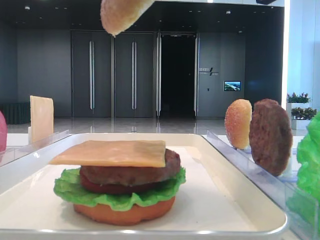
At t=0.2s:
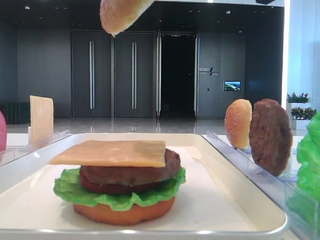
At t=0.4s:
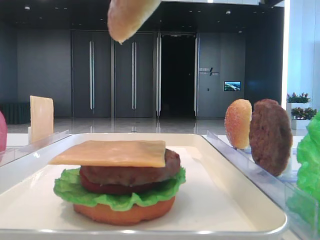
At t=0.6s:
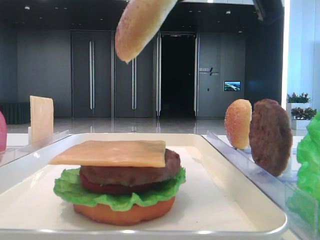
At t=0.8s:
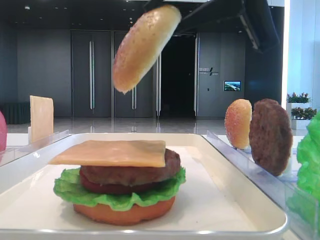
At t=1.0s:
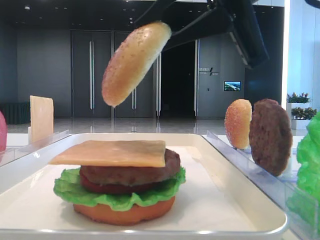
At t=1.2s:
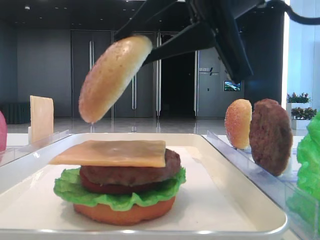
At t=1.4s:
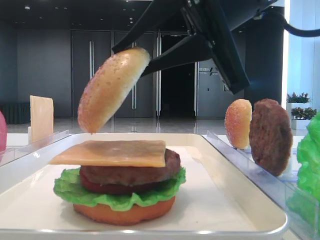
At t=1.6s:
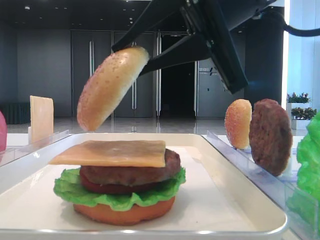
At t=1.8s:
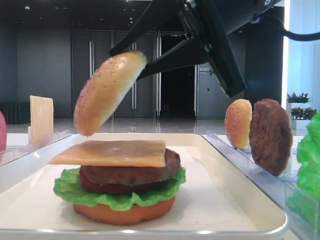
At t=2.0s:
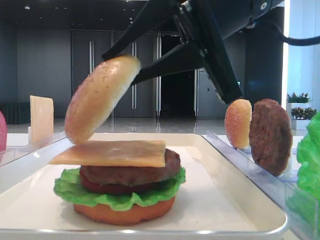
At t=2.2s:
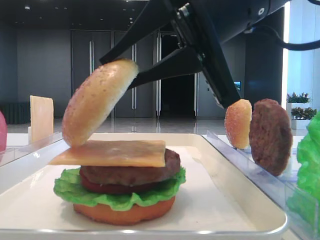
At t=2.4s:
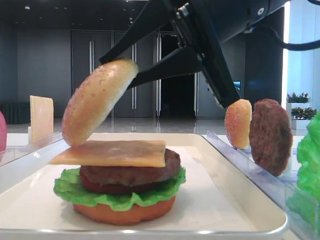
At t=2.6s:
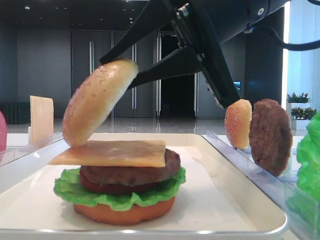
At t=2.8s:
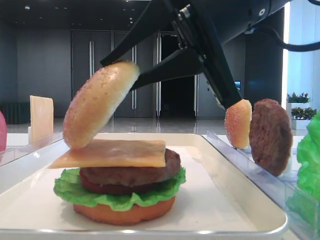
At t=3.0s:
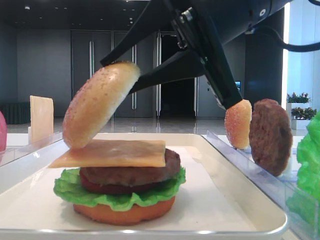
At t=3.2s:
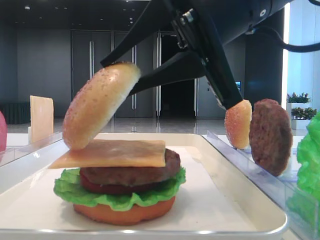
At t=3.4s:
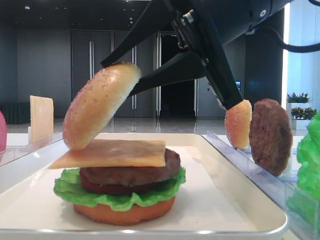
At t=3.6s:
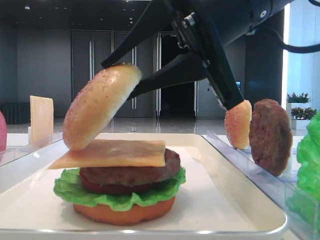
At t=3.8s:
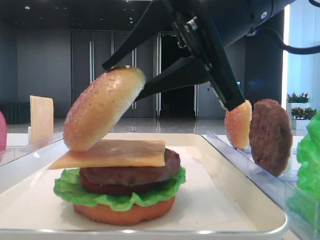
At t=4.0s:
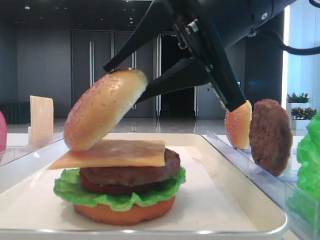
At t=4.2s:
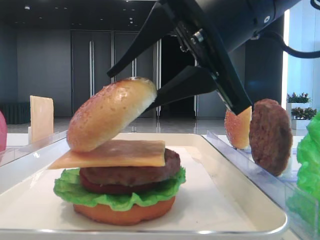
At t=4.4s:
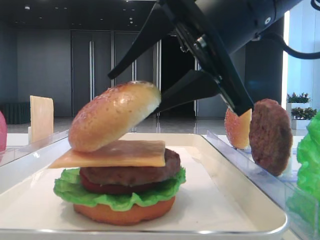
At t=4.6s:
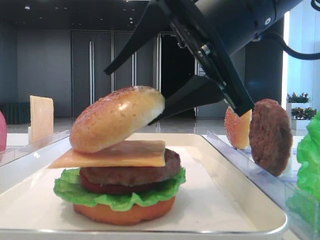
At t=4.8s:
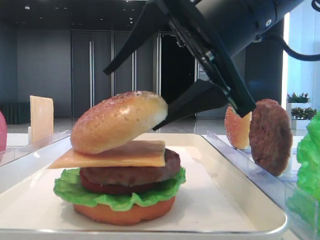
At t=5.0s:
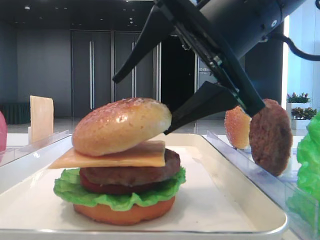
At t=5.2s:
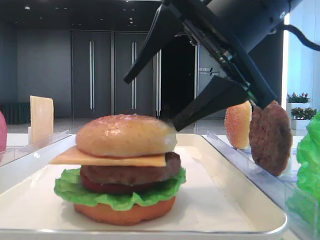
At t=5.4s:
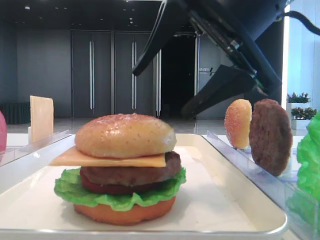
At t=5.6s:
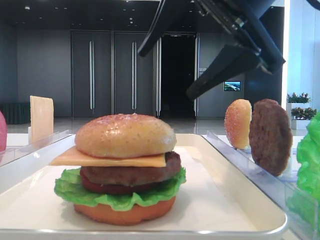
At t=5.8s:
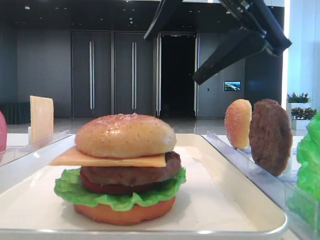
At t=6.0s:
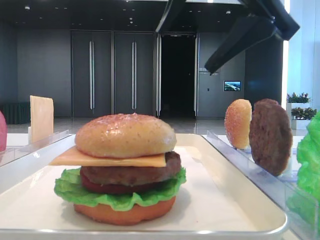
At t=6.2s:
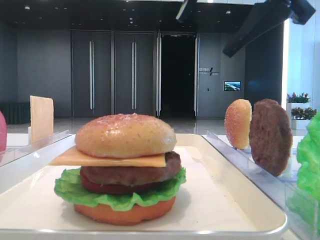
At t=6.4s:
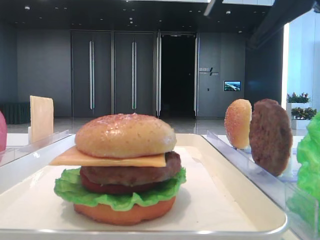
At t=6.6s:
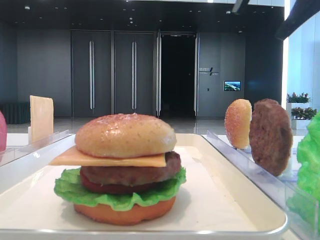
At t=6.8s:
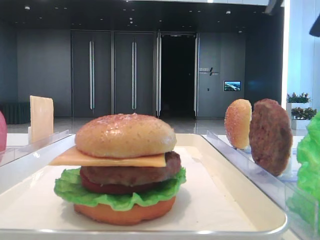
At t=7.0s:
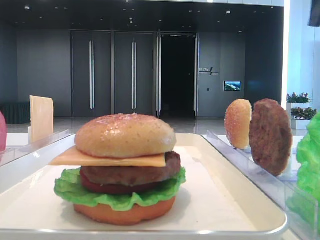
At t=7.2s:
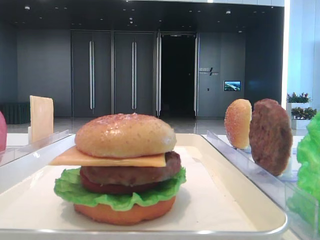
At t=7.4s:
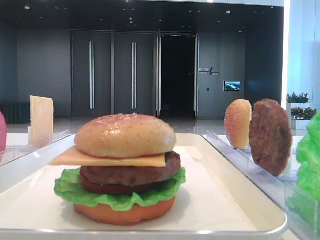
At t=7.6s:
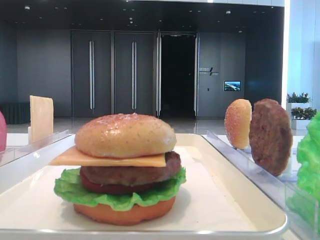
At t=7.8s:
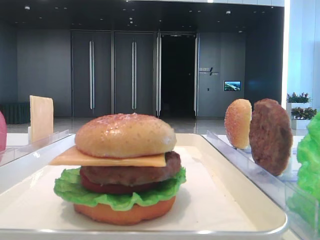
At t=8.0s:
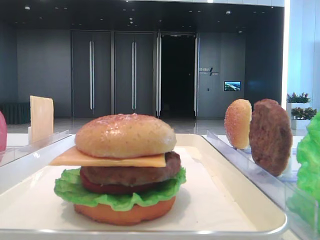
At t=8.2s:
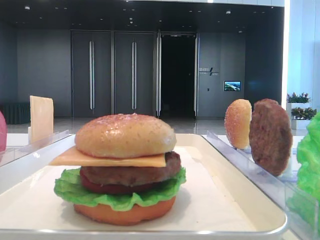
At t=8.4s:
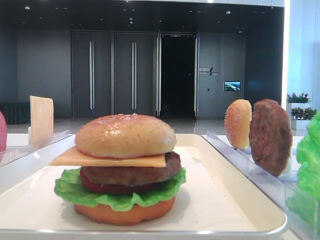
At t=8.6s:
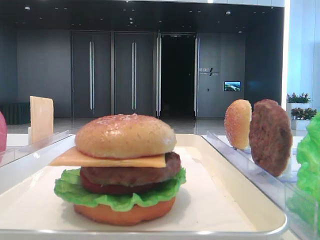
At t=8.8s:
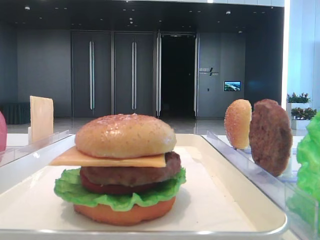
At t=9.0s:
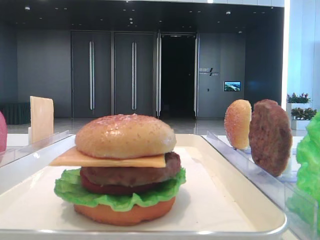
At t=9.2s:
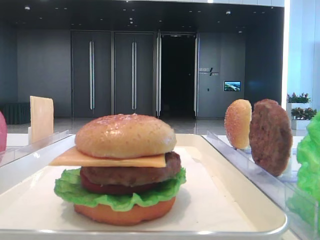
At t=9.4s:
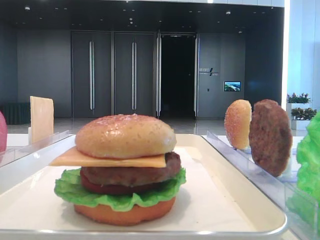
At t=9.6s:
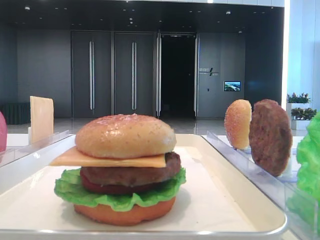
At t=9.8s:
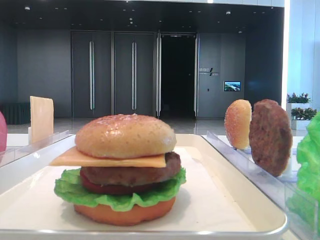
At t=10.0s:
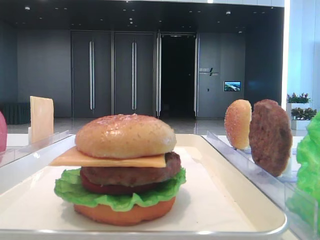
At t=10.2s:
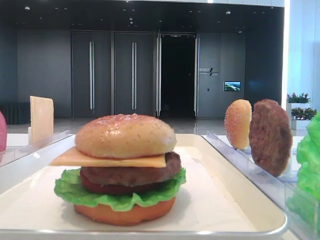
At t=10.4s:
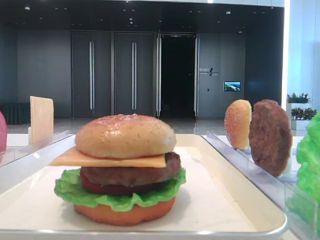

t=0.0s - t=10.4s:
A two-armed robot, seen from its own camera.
Step, t=0.0s - t=5.0s: Place the top bread slice on the cheese with the right hand.
t=0.0s - t=1.4s: The right gripper travels downward by roughly 10 cm.
t=1.4s - t=3.0s: There are only small adjustments of the grippers.
t=3.0s - t=4.4s: The right gripper opens its fingers.
t=4.4s - t=6.0s: The right gripper moves upward, about 5 cm, and opens up.
t=6.0s - t=7.4s: The right gripper goes about 20 cm to the right.

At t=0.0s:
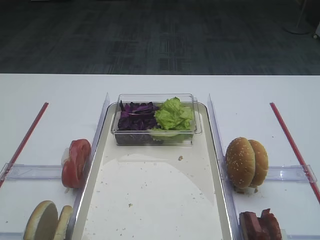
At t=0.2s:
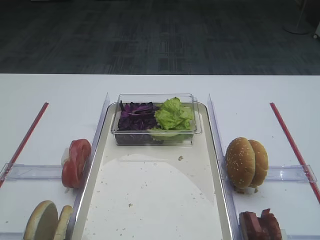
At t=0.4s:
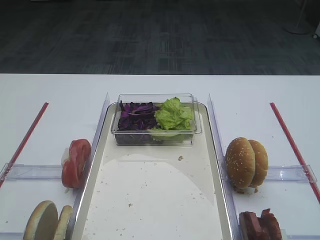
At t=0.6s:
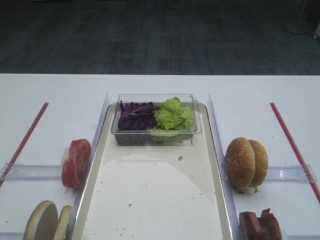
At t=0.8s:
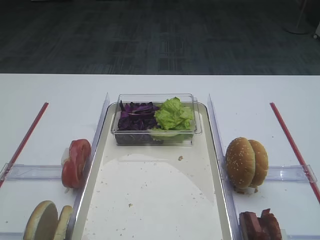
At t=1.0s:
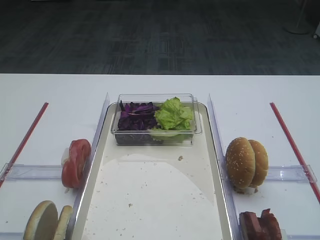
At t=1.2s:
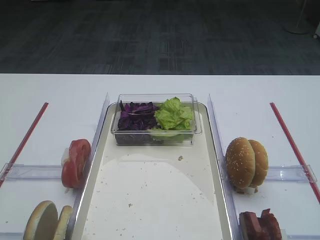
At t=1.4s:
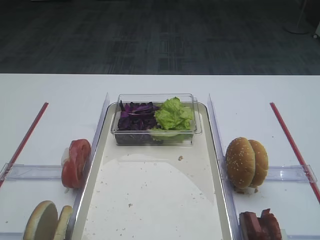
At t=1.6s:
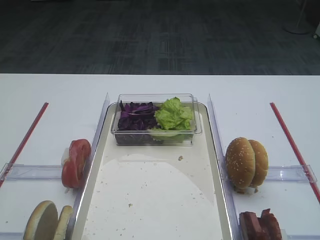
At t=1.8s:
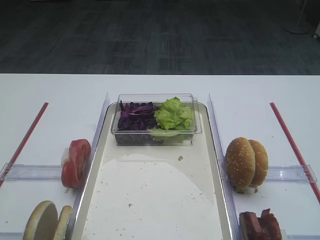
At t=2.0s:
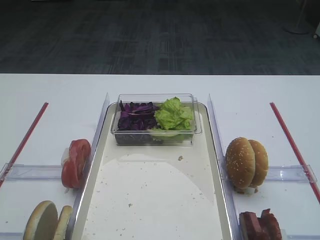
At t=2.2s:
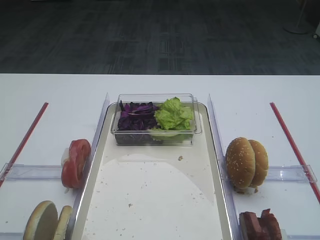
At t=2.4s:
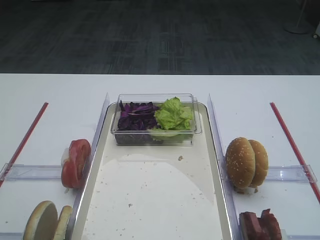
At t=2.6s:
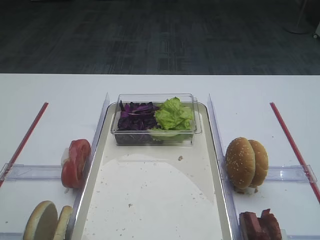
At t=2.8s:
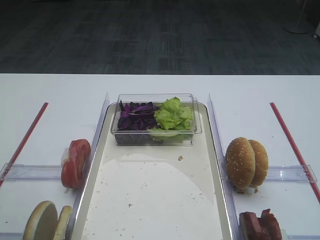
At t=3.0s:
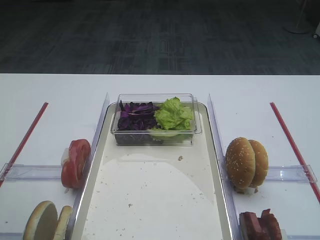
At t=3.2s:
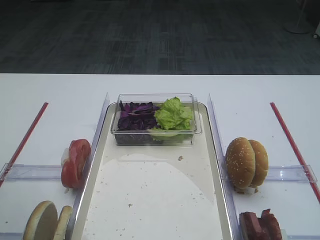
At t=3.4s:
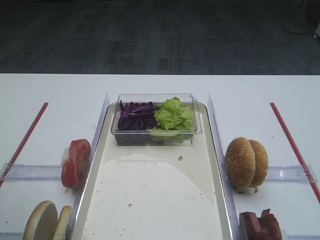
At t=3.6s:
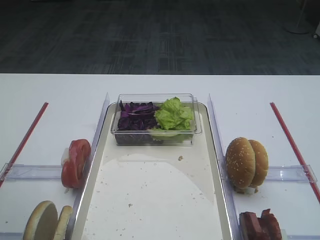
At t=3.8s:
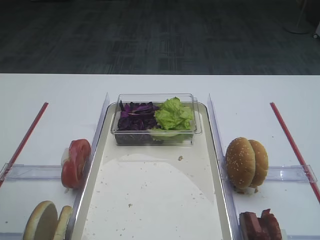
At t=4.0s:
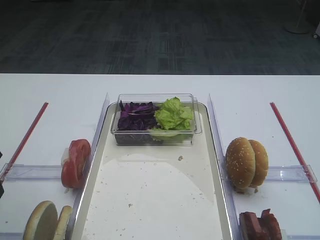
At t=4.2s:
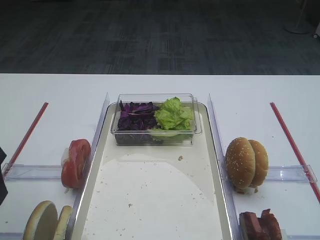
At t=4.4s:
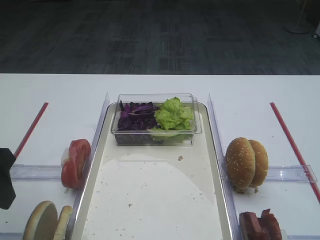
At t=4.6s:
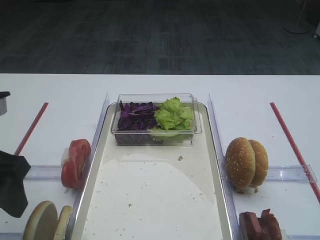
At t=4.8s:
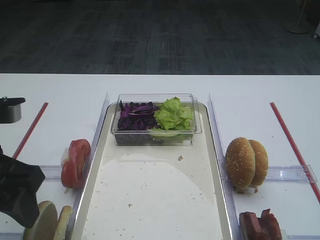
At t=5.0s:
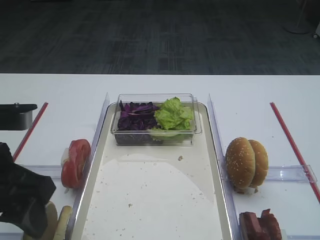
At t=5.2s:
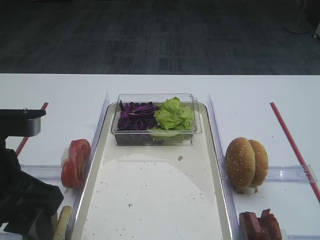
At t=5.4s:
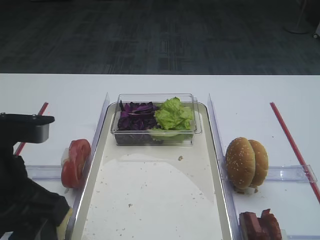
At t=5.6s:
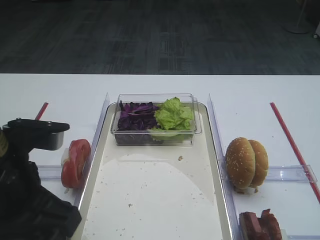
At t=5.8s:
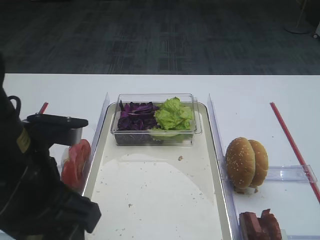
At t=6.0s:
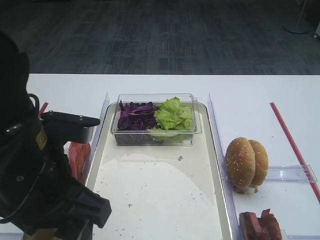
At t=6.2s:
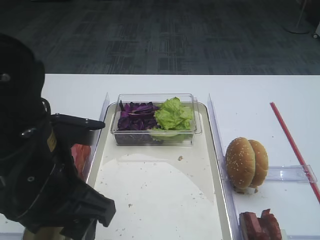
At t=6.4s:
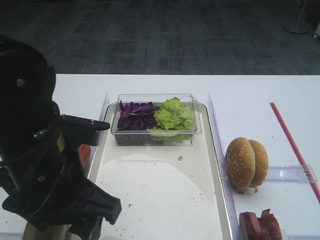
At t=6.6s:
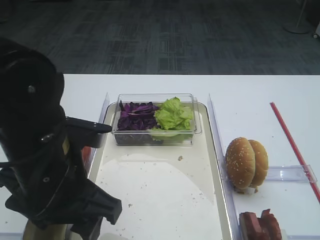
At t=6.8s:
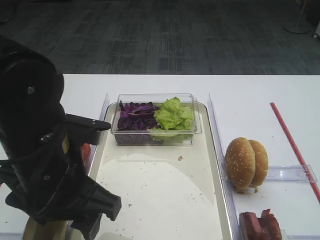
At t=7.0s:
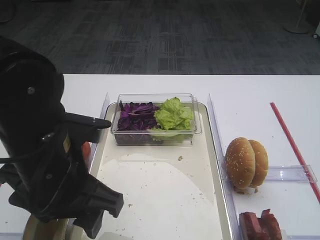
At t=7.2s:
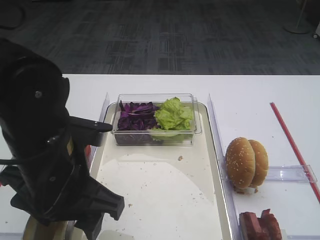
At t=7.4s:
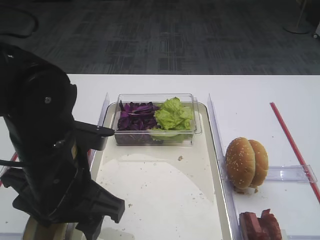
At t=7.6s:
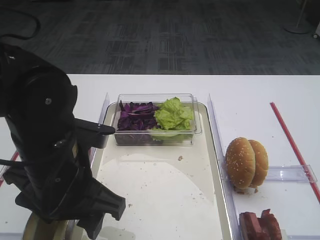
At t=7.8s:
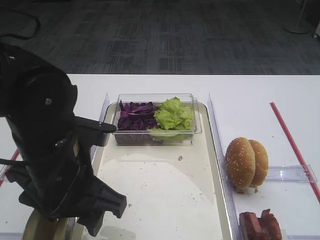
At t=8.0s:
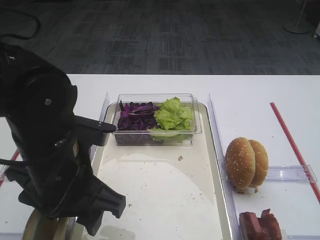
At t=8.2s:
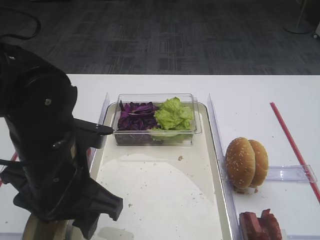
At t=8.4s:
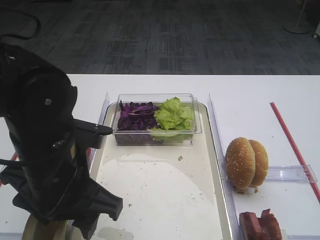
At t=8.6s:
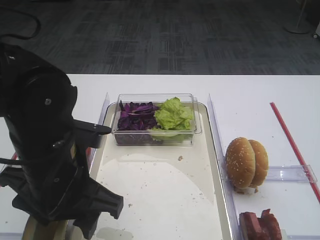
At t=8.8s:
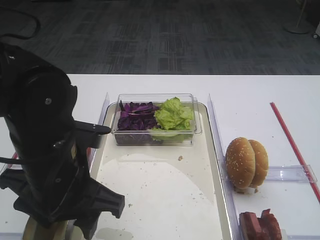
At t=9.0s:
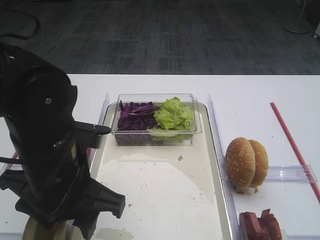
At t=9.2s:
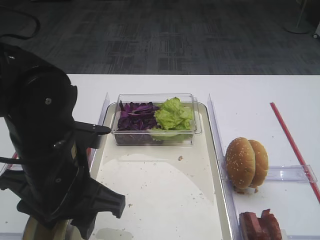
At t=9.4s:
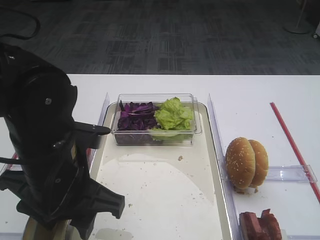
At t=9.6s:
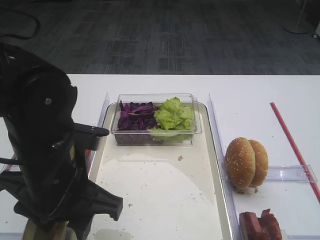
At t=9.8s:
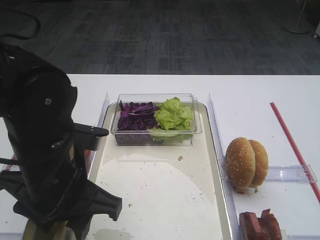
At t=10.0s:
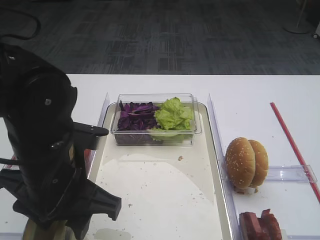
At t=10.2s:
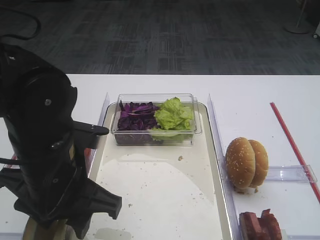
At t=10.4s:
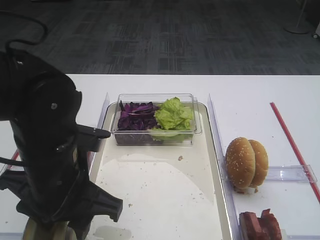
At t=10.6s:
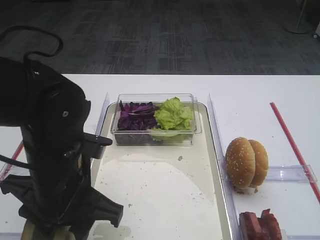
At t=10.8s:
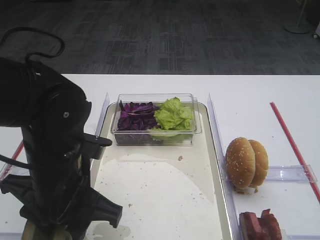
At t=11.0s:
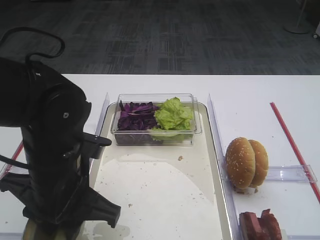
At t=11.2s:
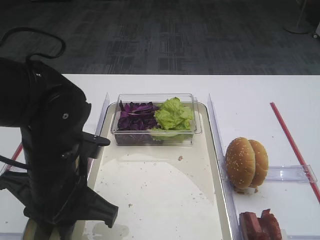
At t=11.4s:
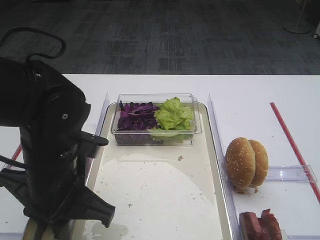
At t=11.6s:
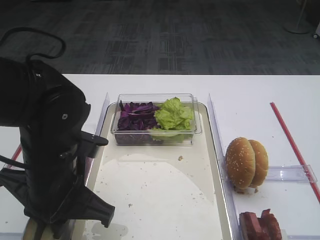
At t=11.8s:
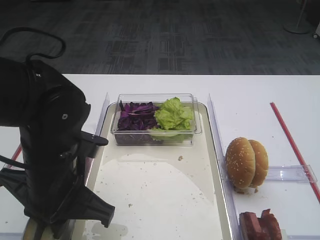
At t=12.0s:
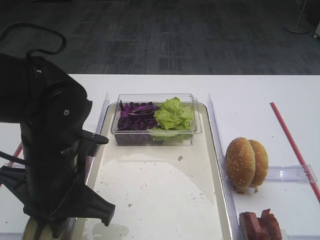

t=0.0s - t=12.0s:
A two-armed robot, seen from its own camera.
t=3.0s - t=4.4s: The grippers move only a little.
t=4.4s - t=6.0s: The left gripper goes about 10 cm to the right.
t=6.0s - t=7.6s: The left gripper changes place by some 5 cm.
t=7.6s - t=9.0s: The two grippers keep their place.
t=9.0s - t=10.4s: Neither gripper changes place.
t=10.4s - t=12.0s: The left gripper closes up.
